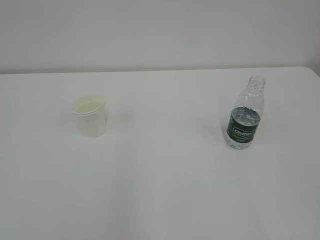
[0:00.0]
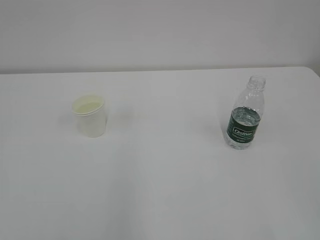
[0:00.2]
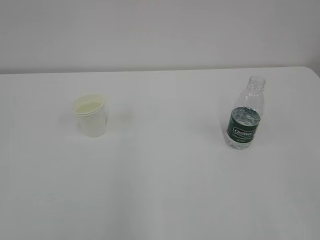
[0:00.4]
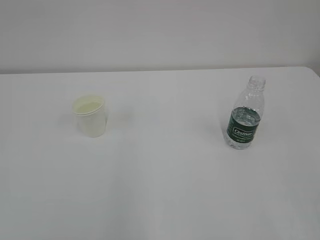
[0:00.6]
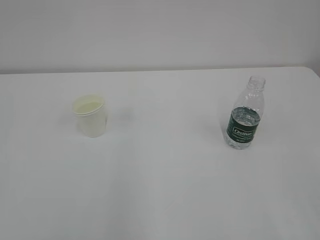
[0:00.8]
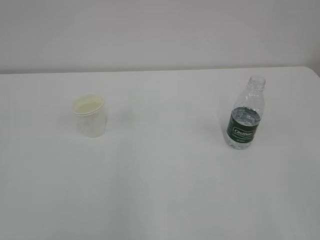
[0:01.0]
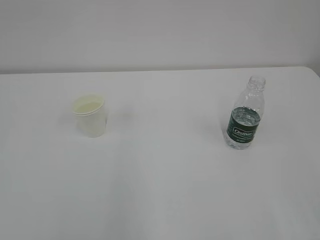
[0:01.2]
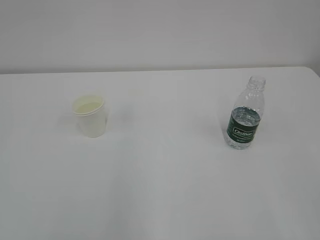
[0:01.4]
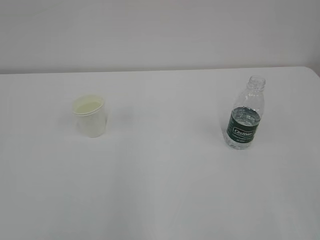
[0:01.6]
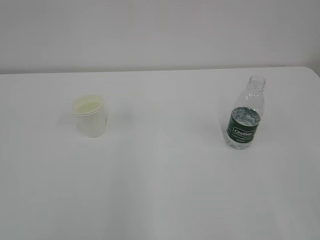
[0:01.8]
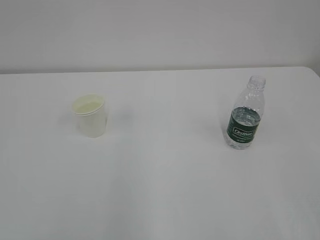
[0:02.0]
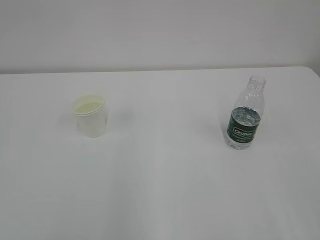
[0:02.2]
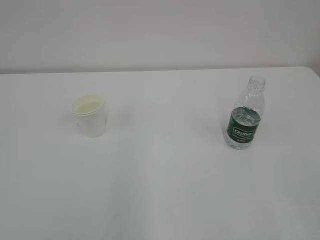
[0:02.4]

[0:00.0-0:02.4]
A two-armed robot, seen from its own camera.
0:01.2 to 0:02.4: The two grippers keep their place.
